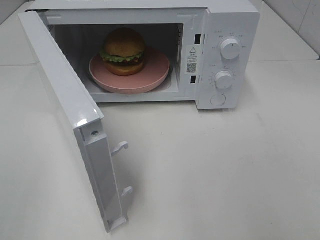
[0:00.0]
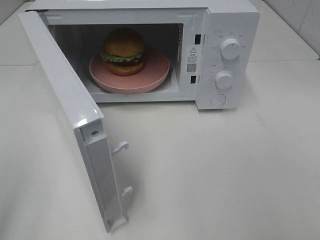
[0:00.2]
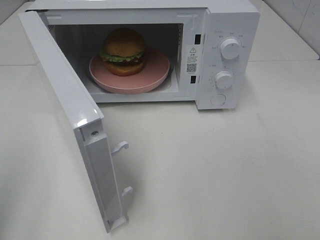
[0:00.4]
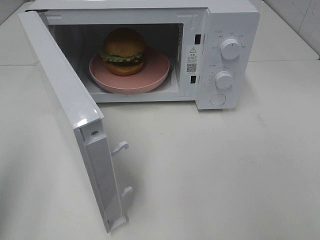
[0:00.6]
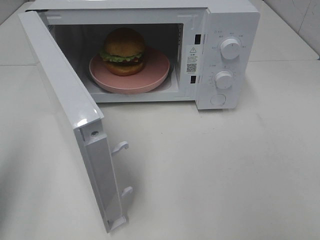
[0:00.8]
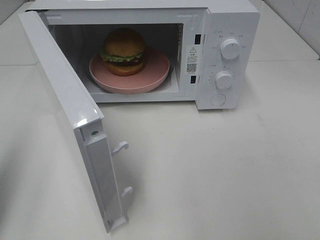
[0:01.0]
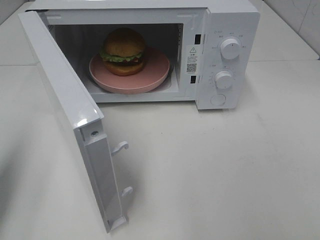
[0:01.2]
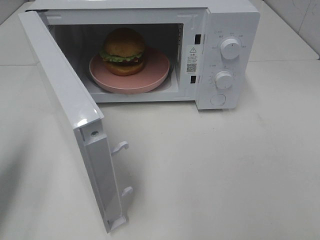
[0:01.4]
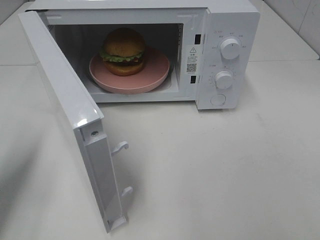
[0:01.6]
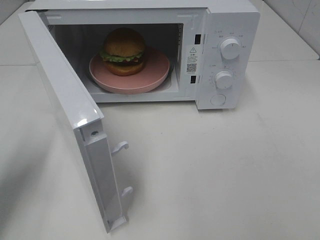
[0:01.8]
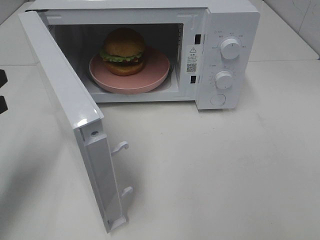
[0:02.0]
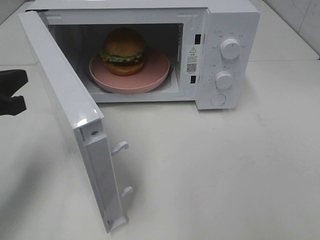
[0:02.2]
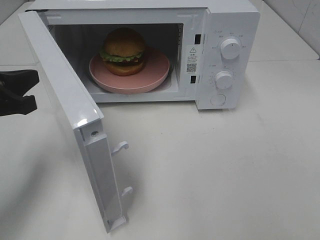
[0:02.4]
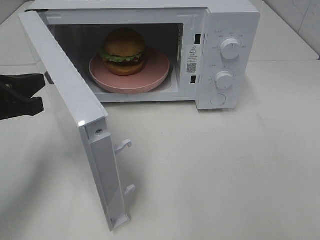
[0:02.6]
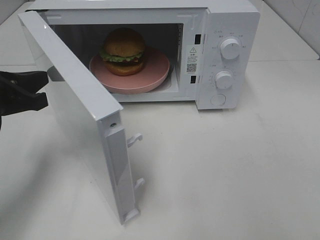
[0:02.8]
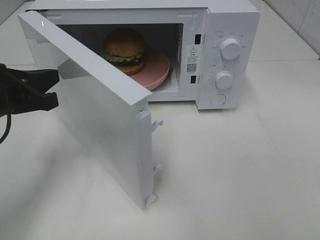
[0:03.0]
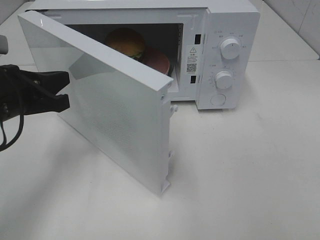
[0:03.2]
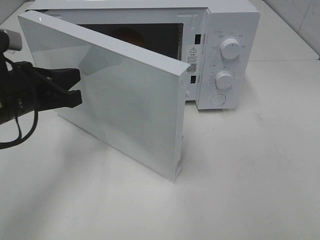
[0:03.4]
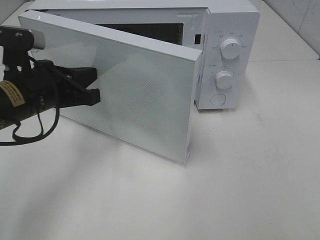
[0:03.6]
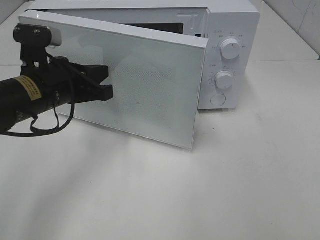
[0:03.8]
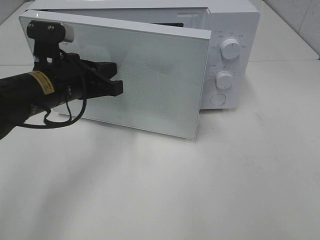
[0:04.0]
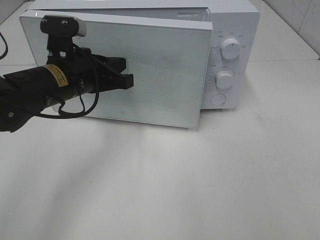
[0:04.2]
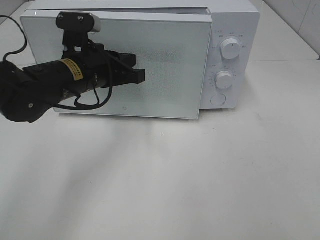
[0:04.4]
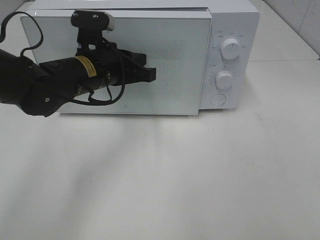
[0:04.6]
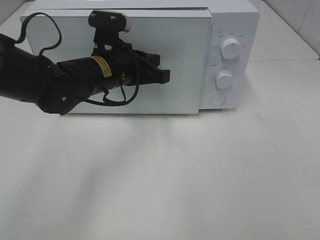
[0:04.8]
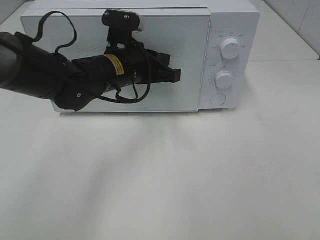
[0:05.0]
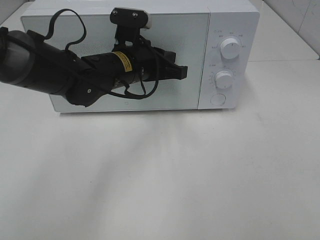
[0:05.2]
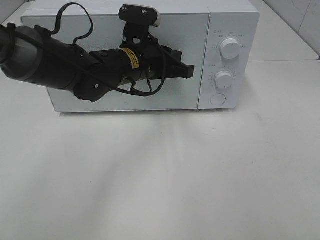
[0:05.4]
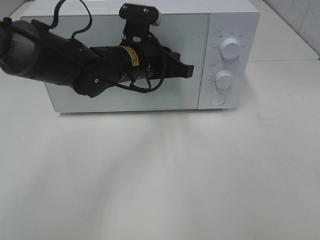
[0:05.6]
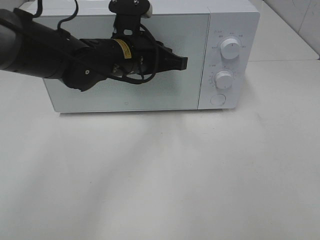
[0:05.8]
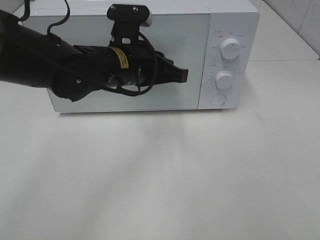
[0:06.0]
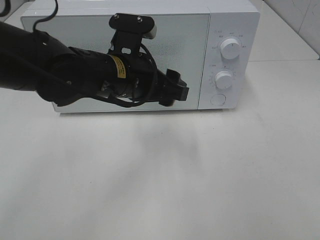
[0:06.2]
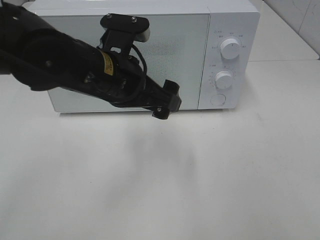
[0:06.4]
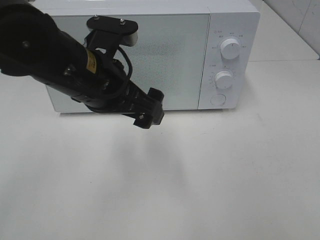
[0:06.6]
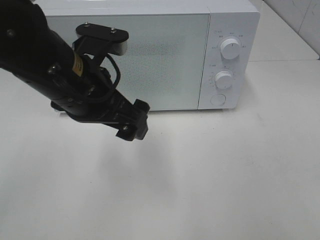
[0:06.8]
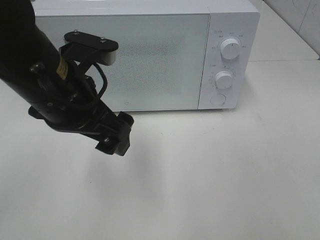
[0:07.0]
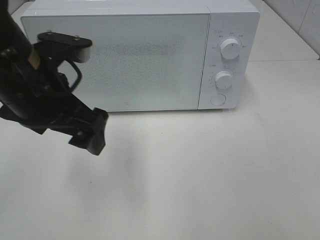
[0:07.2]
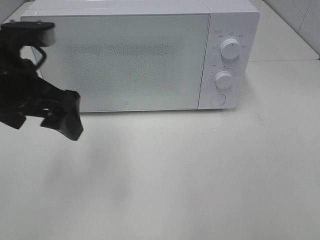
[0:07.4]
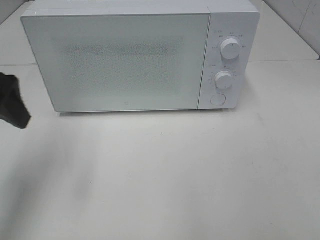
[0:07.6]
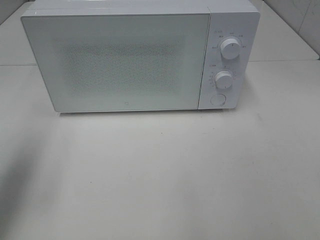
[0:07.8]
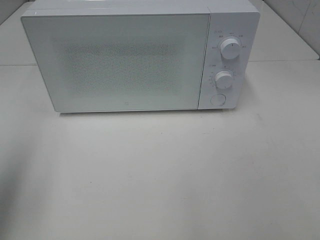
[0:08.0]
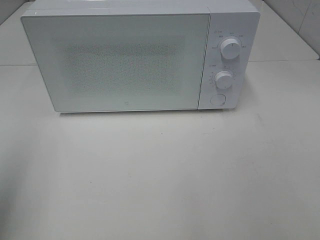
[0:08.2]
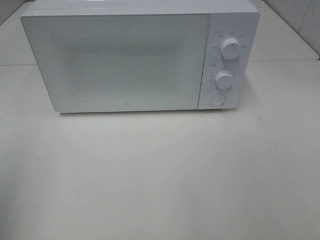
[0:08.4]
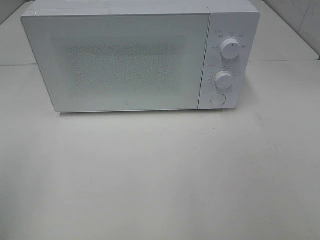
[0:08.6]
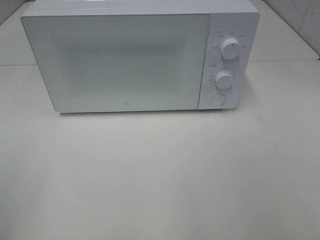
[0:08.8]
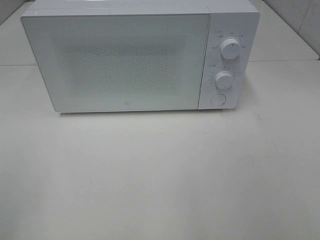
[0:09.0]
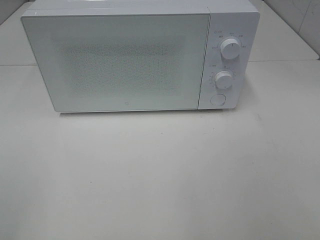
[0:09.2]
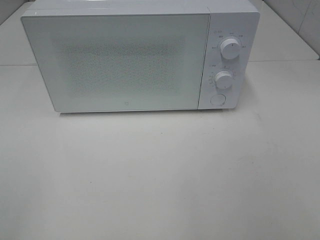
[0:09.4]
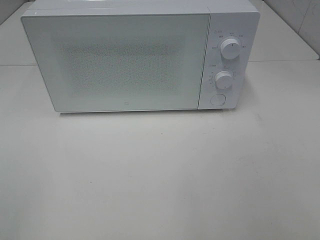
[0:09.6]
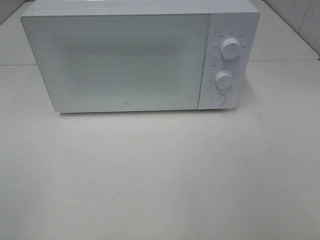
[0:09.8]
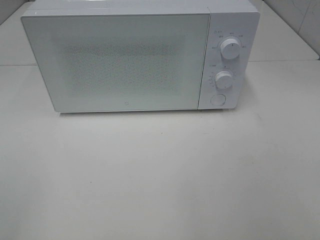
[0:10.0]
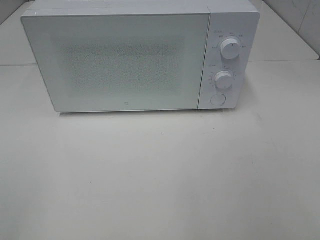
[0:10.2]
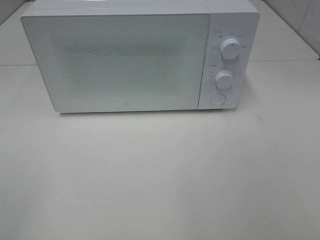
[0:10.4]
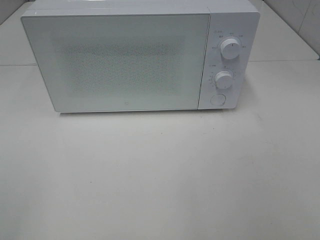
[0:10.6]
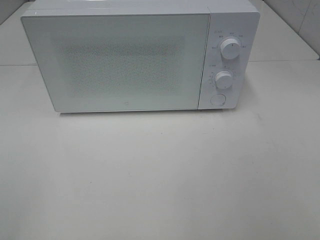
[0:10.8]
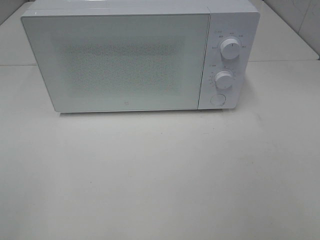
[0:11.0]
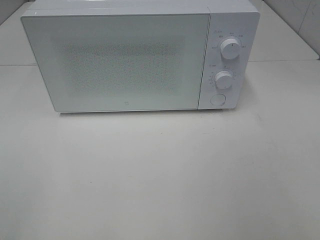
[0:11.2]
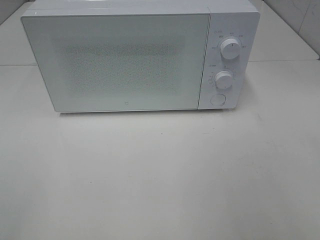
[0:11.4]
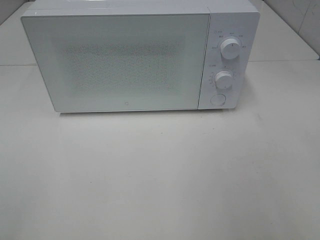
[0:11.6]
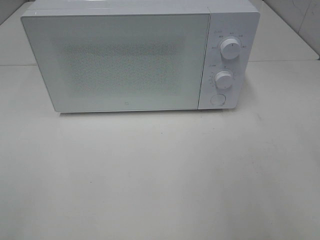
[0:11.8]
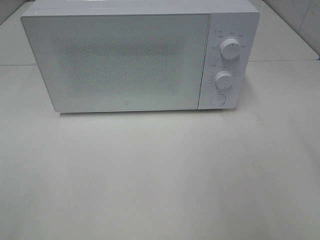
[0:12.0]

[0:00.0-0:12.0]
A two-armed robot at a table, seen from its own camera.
Task of the whole recording: Heat the burger.
Step, 0:00.0 to 0:05.8: Left hand: close the microwave door.
0:00.0 to 0:01.6: The left gripper goes some 20 cm forward and downward, and closes its fingers.
0:01.6 to 0:03.0: The left gripper heads to the right and forward, covering approximately 10 cm.
0:03.0 to 0:04.4: The left gripper moves to the right and forward, some 15 cm.
0:04.4 to 0:06.0: The left gripper shifts some 5 cm to the right.
0:06.0 to 0:07.6: The left gripper is displaced to the left and upward by some 20 cm, and opens its fingers.
0:07.6 to 0:09.0: The left gripper is displaced backward by some 20 cm.

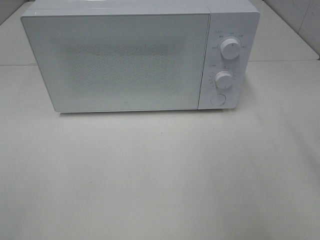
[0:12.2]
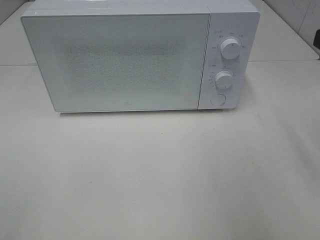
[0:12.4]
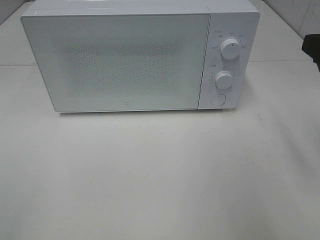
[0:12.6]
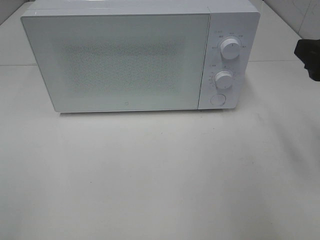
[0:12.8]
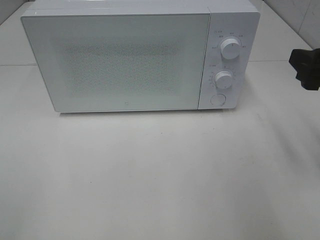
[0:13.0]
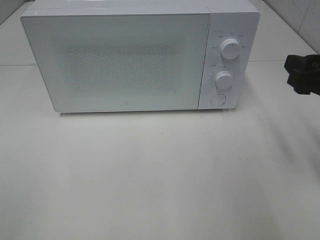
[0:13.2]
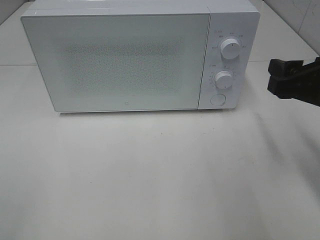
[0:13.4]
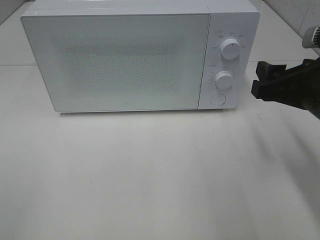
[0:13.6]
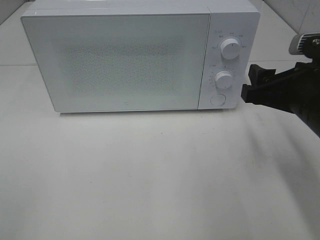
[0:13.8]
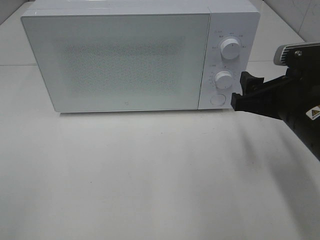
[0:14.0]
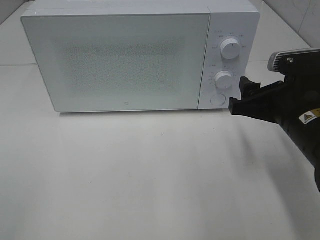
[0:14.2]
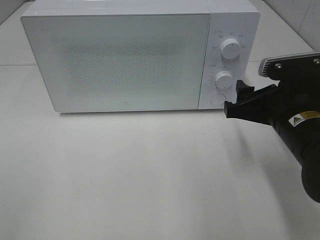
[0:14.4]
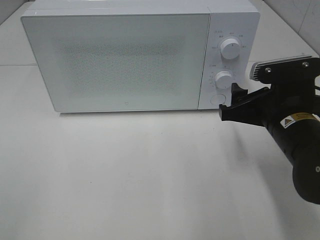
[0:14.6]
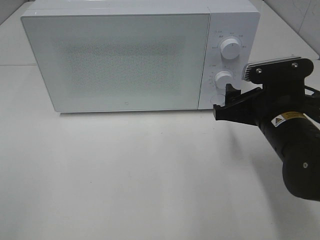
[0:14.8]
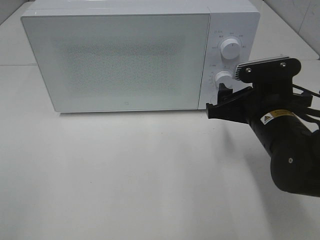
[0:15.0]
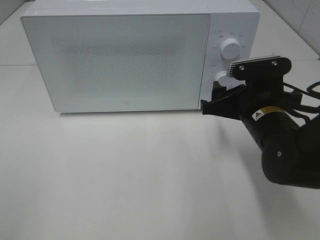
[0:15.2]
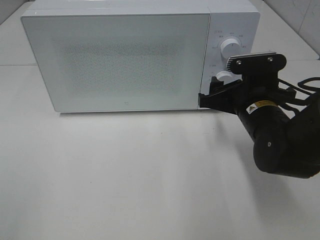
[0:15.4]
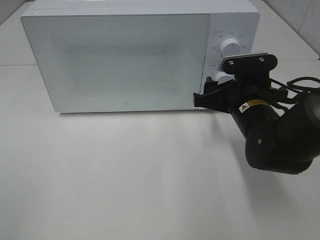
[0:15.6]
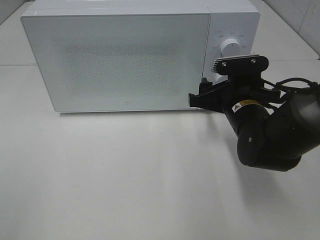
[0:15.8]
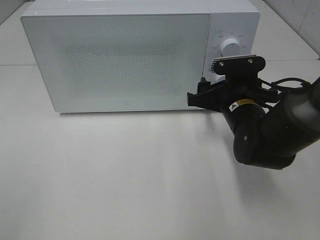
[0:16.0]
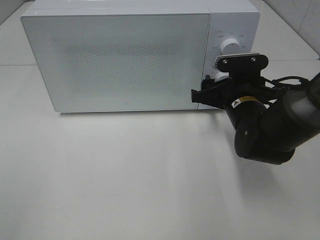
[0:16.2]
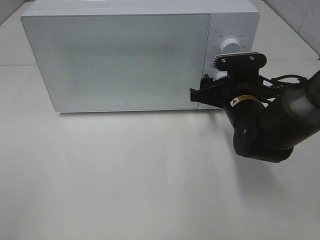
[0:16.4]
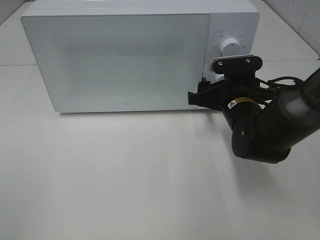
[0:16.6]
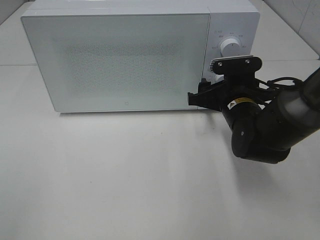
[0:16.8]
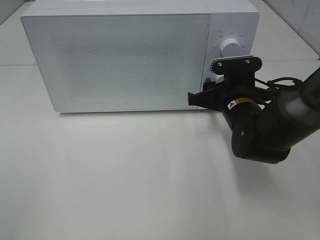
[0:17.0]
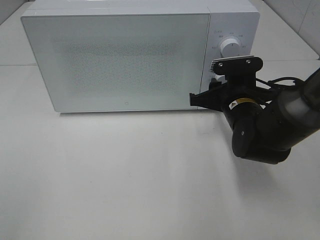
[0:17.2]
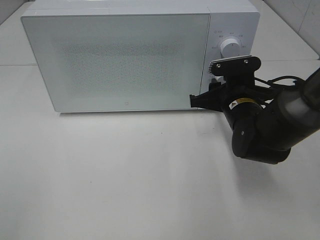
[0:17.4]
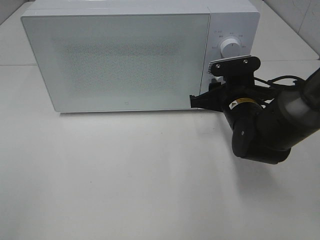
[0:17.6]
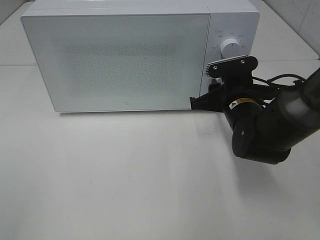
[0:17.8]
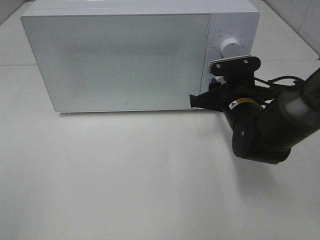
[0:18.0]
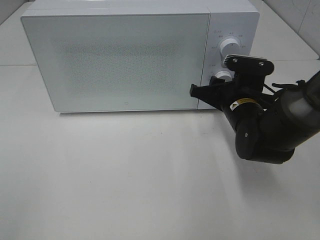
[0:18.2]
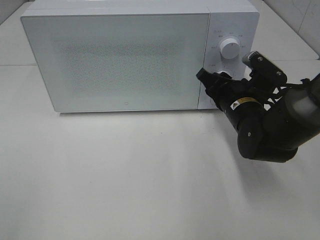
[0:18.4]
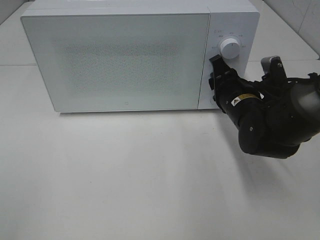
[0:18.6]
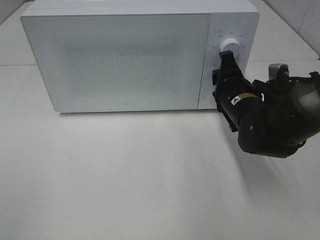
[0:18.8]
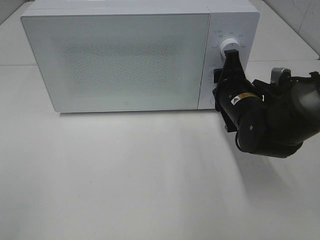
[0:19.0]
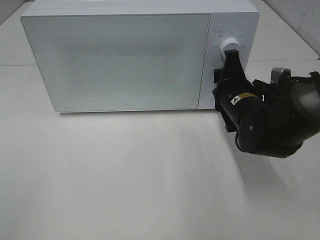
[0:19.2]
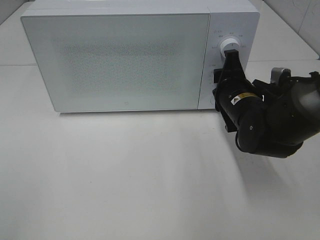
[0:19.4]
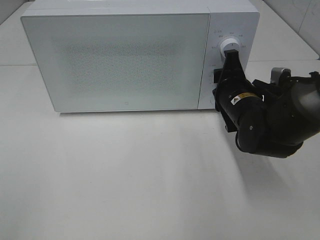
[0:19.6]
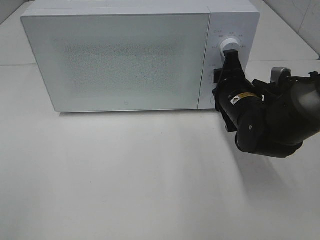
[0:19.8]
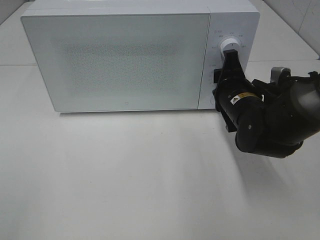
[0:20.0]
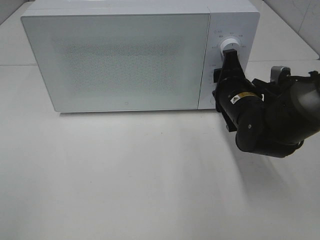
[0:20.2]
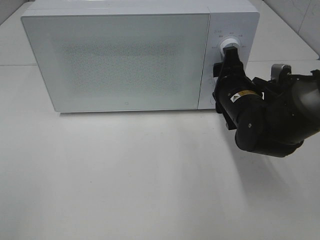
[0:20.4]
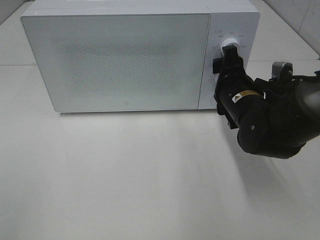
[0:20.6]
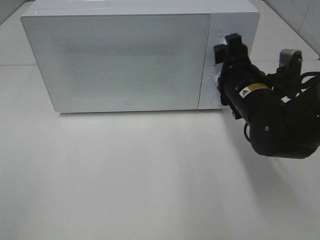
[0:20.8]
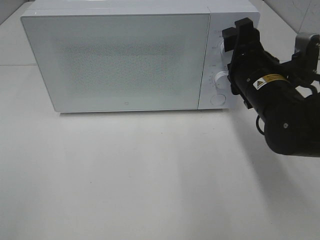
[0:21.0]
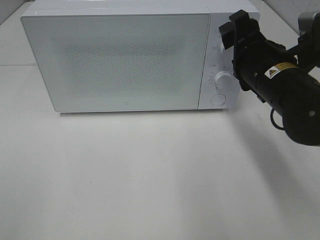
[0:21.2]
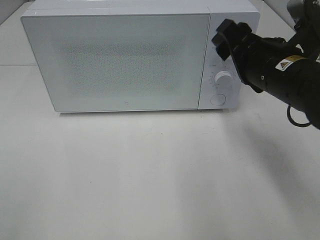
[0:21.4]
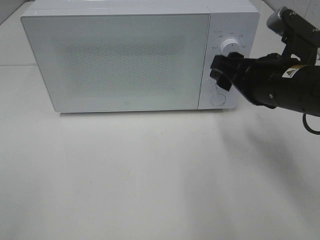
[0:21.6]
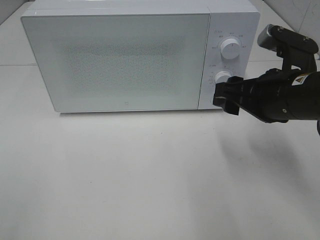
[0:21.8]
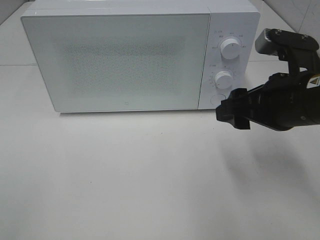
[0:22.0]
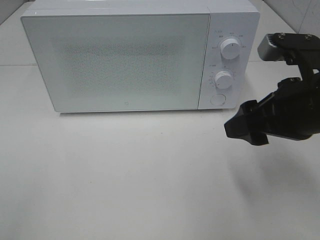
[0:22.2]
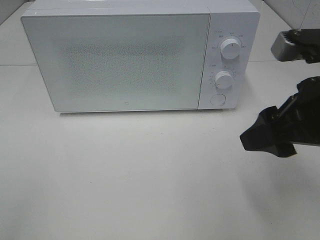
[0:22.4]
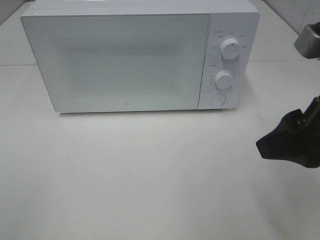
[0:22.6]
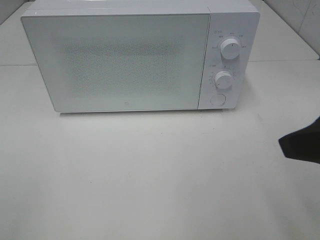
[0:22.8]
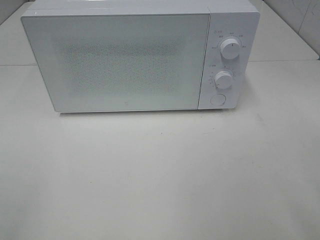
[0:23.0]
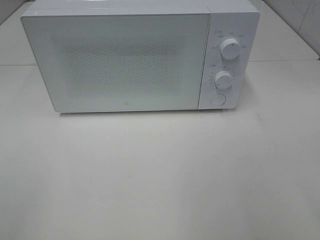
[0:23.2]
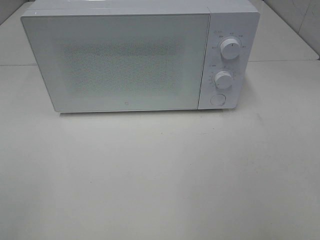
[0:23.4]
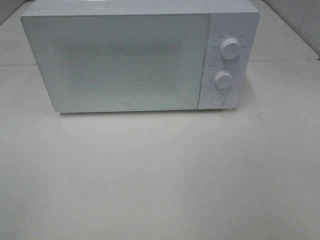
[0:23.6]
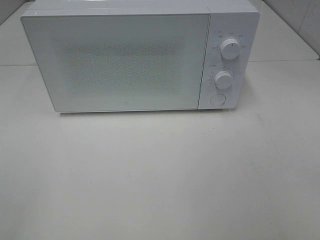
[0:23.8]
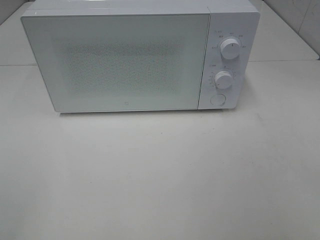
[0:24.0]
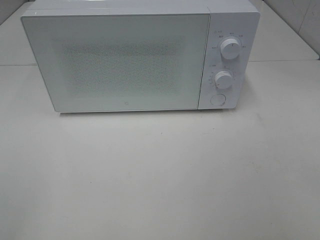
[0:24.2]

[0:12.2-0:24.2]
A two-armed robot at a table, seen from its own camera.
Task of the whole recording: Heat the burger.
Step, 0:12.2 to 0:20.2: Right hand: twist timer button.
0:12.2 to 0:13.8: The right gripper is displaced downward, to the left and forward by about 15 cm.
0:13.8 to 0:15.2: The right gripper heads downward and forward, covering some 10 cm.
0:15.2 to 0:16.6: The right gripper goes roughly 5 cm forward.
0:16.6 to 0:18.2: The right gripper closes its fingers.
0:19.8 to 0:21.2: The right gripper moves upward, approximately 10 cm.
0:21.2 to 0:22.6: The right gripper travels backward, upward and to the right by some 15 cm.
0:22.6 to 0:24.2: The right gripper travels backward and to the right by roughly 15 cm.
